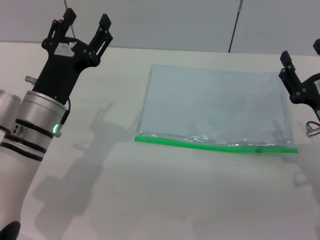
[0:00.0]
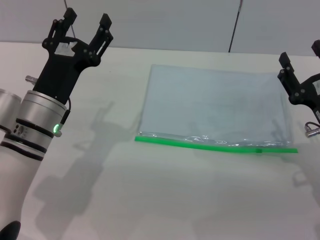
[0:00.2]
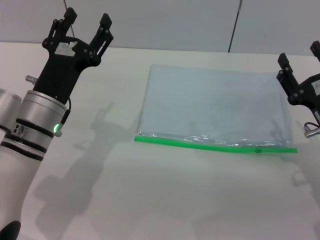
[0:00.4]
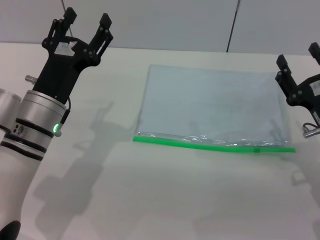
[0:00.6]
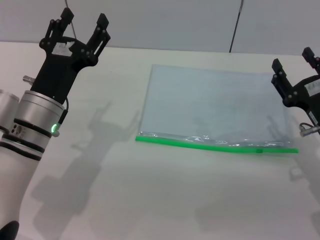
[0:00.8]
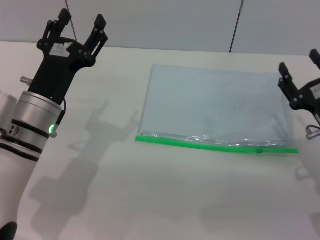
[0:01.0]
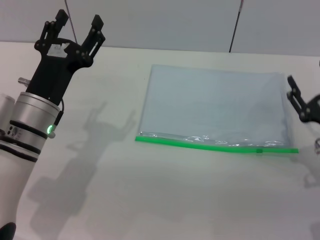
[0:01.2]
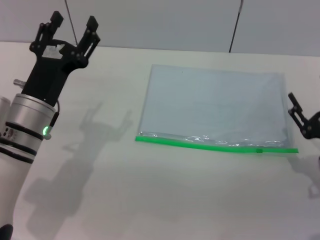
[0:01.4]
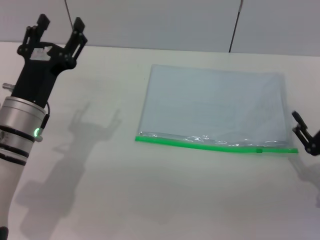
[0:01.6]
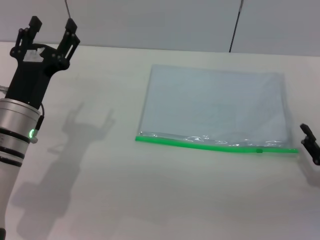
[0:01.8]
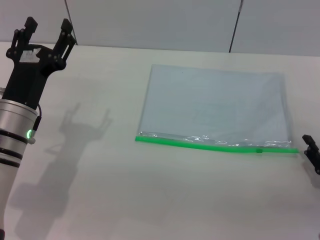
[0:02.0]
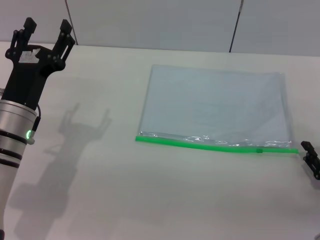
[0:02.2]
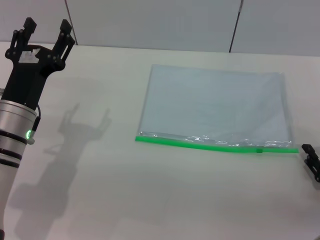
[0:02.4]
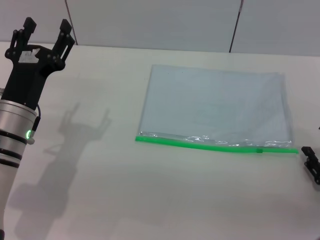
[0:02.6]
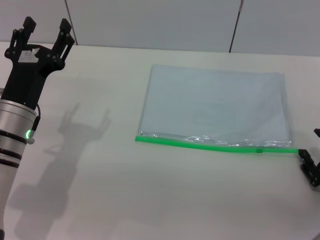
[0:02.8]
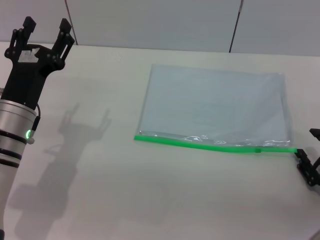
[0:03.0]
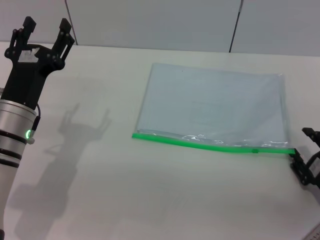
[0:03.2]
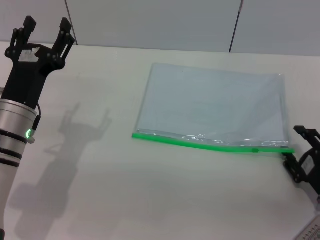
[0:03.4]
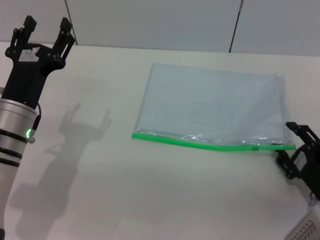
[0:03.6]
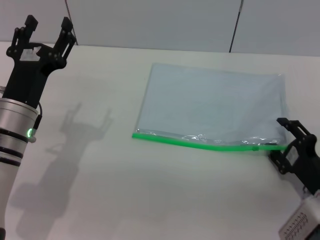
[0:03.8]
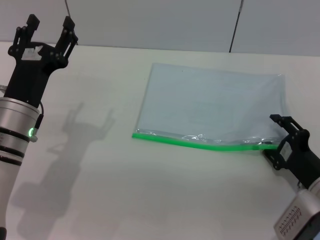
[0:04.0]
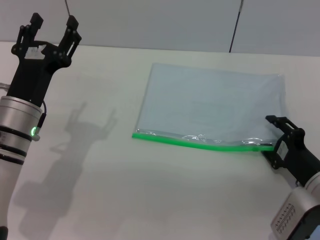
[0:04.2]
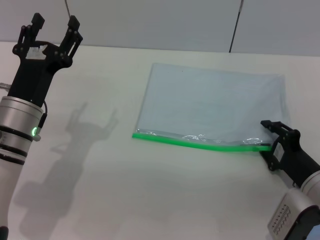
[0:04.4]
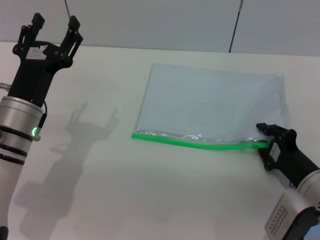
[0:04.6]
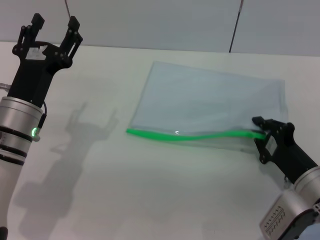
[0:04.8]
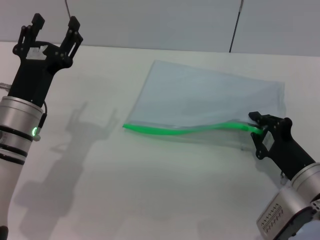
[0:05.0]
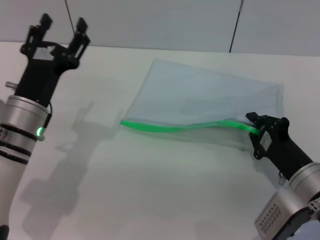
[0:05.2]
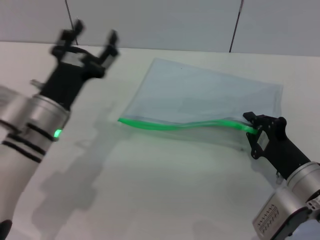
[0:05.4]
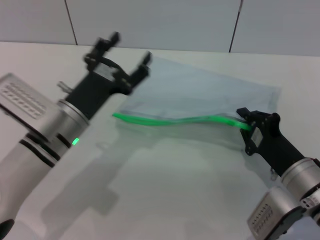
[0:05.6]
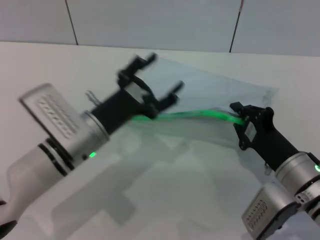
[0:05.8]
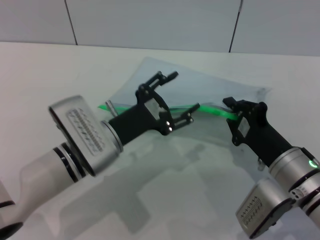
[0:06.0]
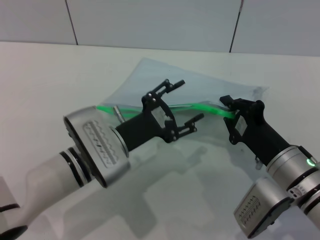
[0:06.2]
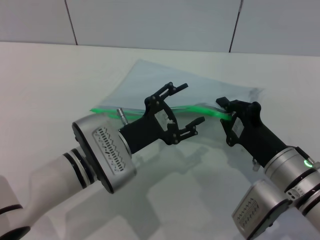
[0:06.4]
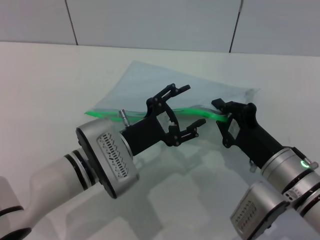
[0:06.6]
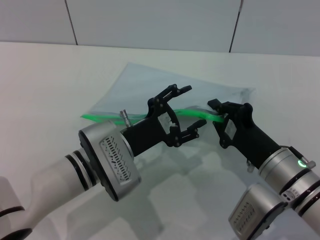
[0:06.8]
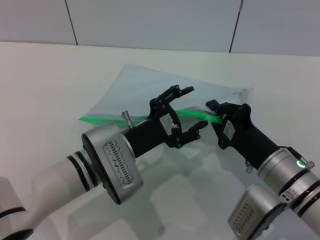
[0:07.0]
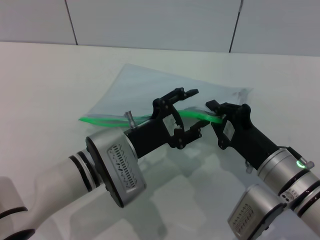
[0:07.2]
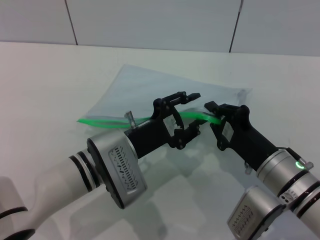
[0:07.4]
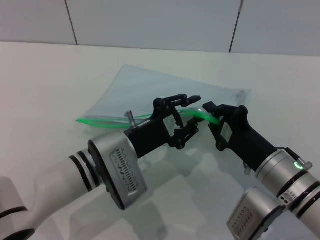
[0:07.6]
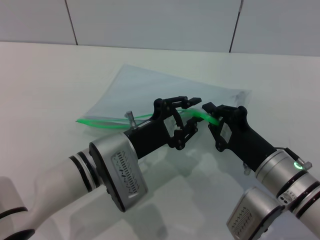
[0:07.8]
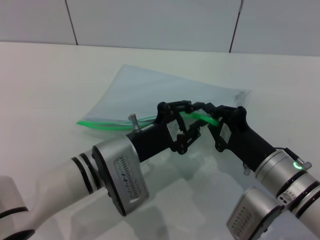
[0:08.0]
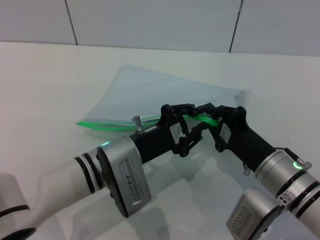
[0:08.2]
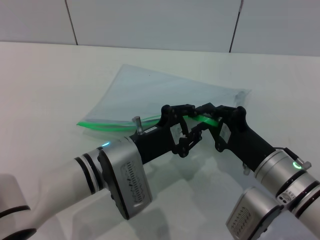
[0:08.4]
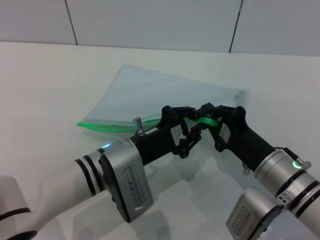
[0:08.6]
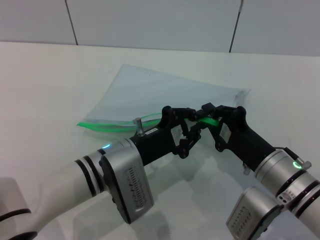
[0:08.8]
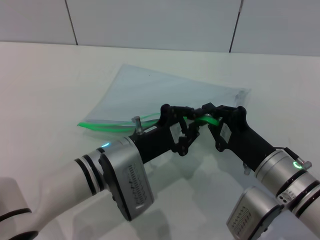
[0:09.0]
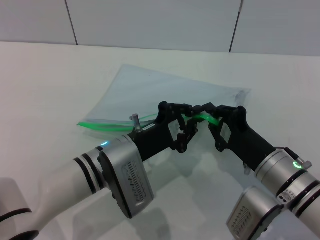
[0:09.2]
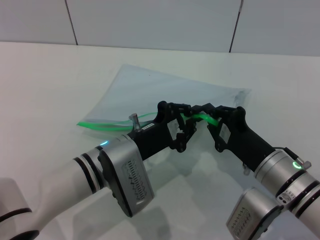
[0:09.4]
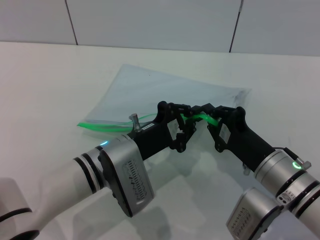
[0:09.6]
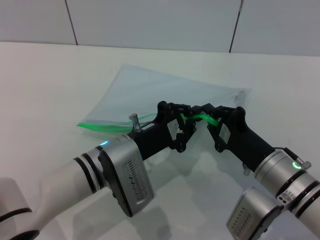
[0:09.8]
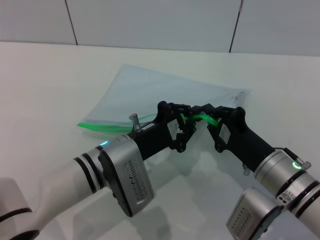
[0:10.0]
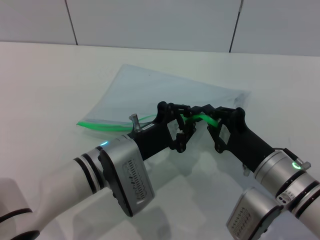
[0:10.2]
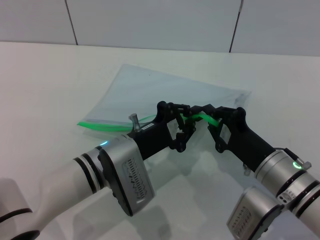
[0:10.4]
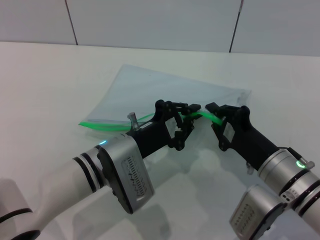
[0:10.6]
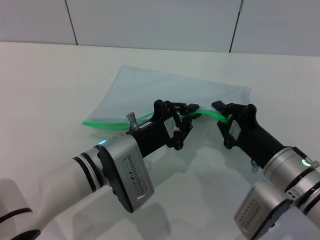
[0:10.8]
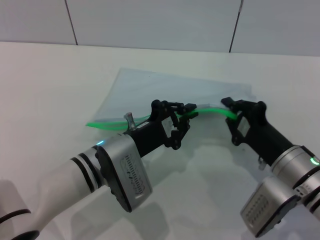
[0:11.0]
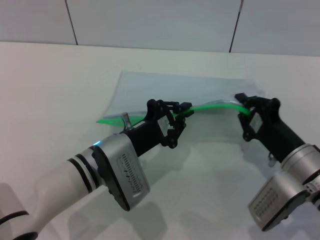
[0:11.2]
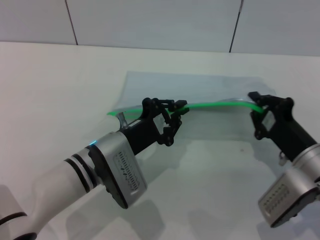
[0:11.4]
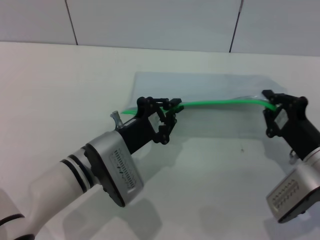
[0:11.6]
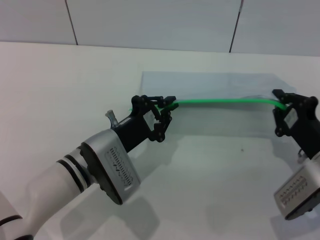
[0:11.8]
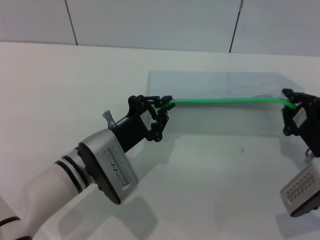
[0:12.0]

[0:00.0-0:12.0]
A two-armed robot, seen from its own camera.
Step, 0:00.0 to 0:05.8: Pick up the transparent plastic bag with the right gripper.
0:00.0 to 0:01.6: The right gripper ends up roughly 5 cm from where it was.
0:03.0 to 0:04.4: The right gripper moves to the left, some 5 cm.
0:04.4 to 0:06.0: The left gripper is displaced to the right by about 10 cm. The right gripper heads to the left, covering approximately 5 cm, and closes up.
0:06.0 to 0:07.6: The left gripper closes up.
0:07.6 to 0:09.0: The left gripper closes up.
0:09.0 to 0:10.4: The two grippers keep their place.
0:10.4 to 0:12.0: The right gripper travels to the right by some 10 cm.

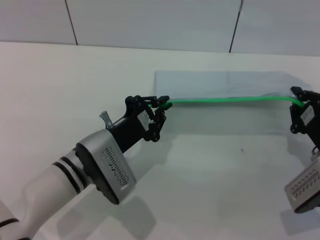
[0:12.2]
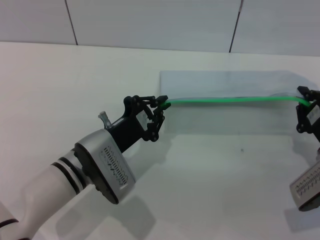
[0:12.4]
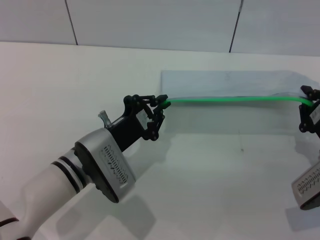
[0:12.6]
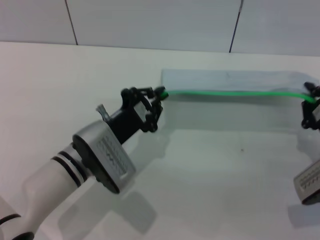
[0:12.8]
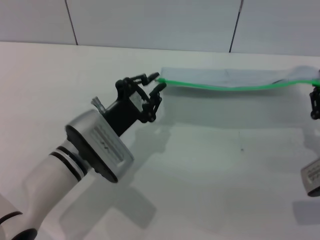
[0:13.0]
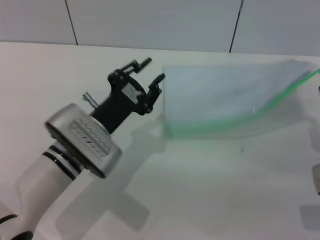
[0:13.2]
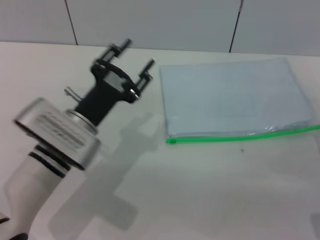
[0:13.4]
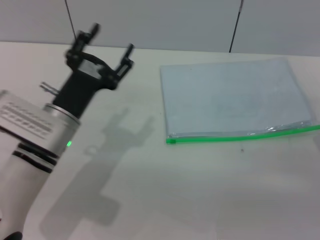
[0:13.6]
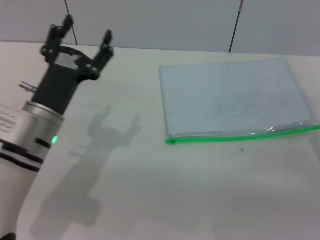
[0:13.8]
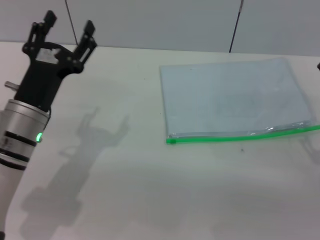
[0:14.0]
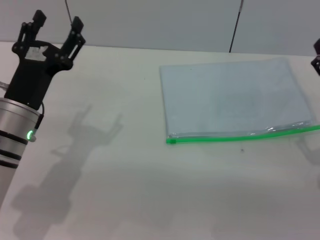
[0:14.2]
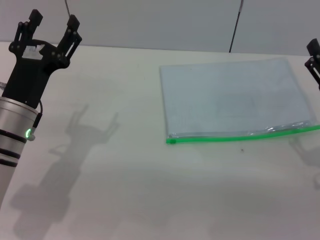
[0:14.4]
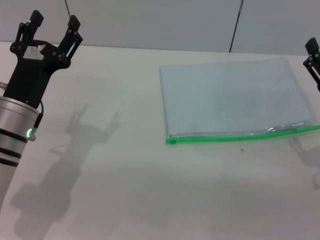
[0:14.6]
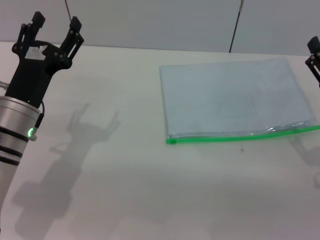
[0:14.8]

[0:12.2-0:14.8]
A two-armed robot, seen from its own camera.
Step, 0:13.2 to 0:13.6: Place the transparent plastic bag.
0:12.2 to 0:13.4: The right gripper opens its fingers. Meanwhile the left gripper opens.
0:13.4 to 0:14.8: The left gripper shifts roughly 5 cm to the left, and opens up. The right gripper opens its fingers.
